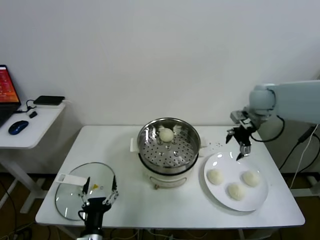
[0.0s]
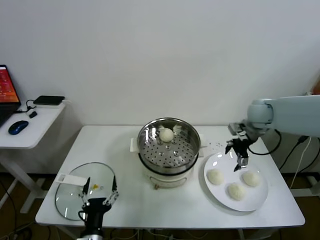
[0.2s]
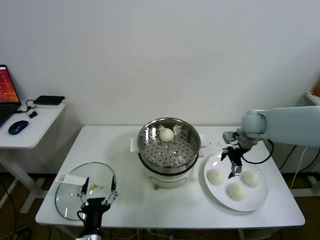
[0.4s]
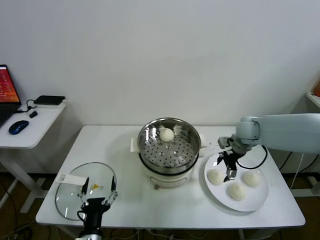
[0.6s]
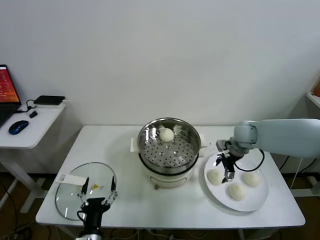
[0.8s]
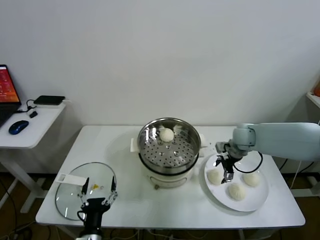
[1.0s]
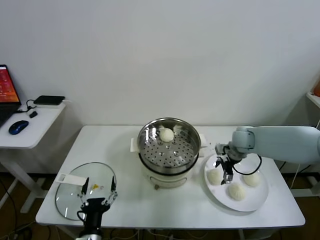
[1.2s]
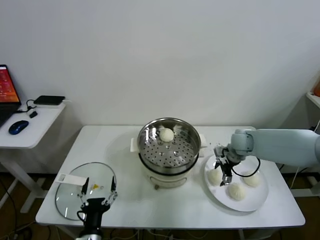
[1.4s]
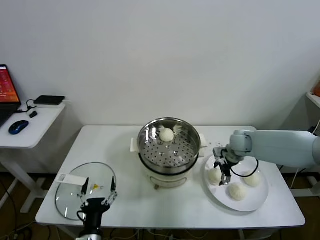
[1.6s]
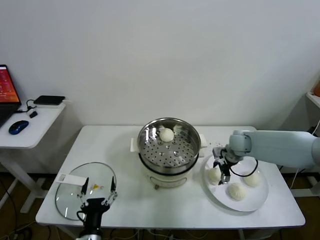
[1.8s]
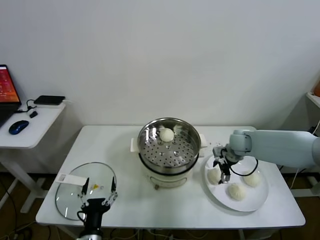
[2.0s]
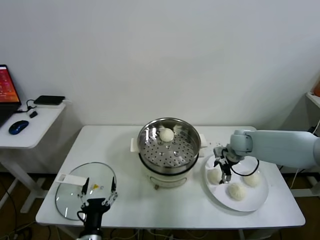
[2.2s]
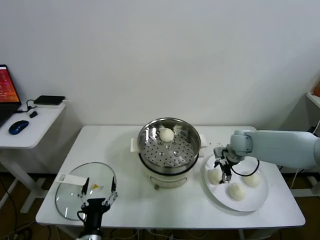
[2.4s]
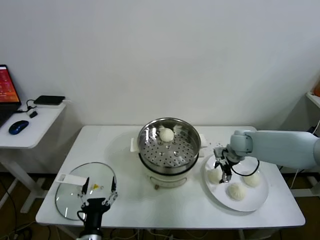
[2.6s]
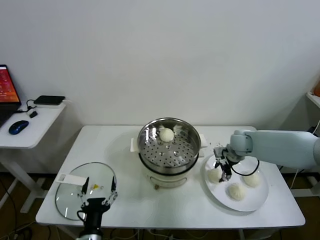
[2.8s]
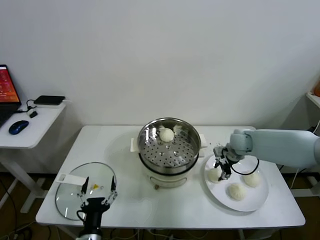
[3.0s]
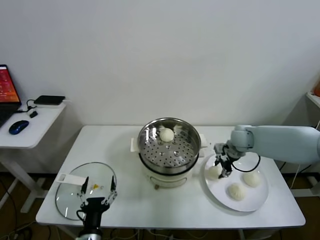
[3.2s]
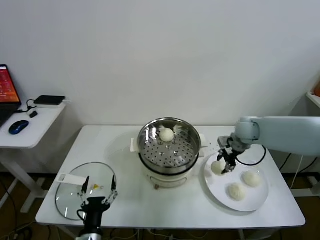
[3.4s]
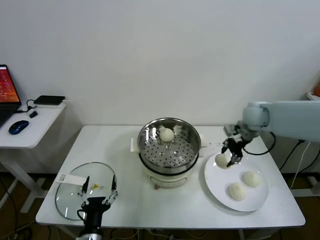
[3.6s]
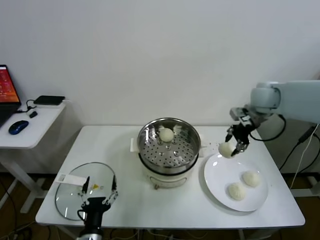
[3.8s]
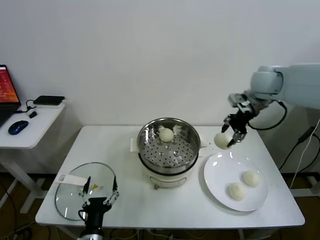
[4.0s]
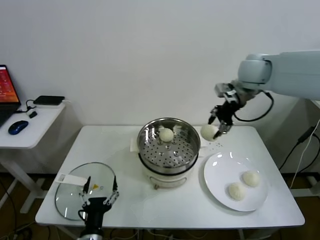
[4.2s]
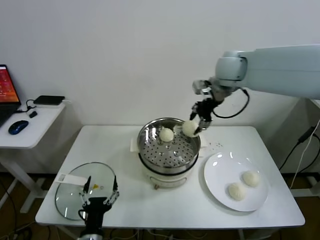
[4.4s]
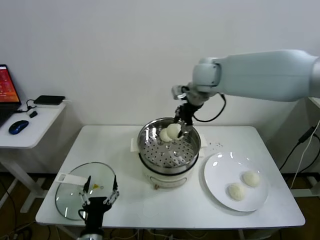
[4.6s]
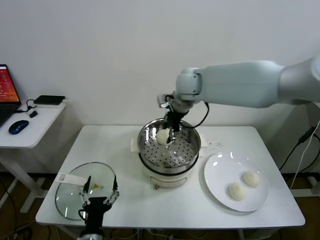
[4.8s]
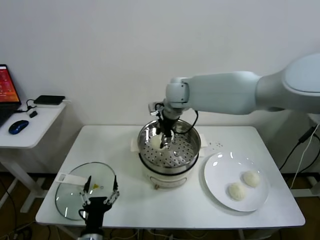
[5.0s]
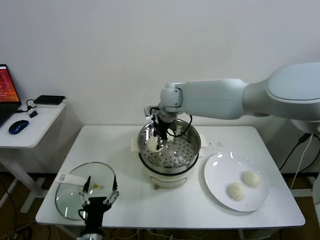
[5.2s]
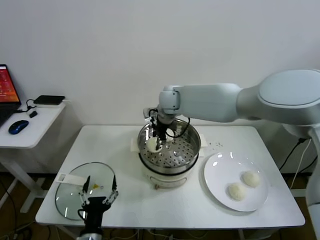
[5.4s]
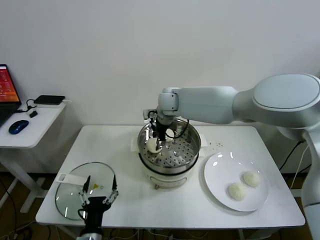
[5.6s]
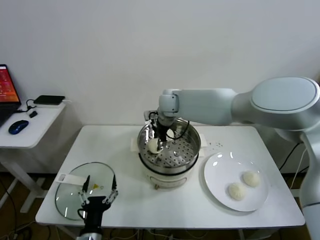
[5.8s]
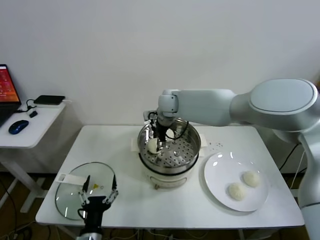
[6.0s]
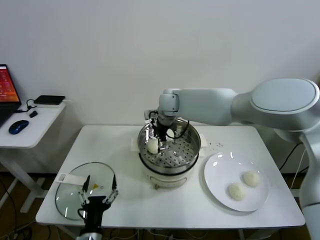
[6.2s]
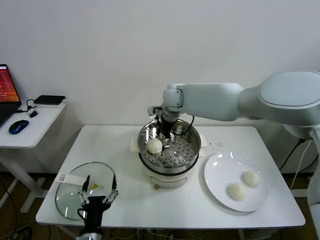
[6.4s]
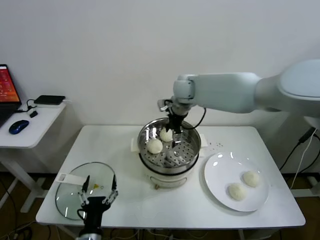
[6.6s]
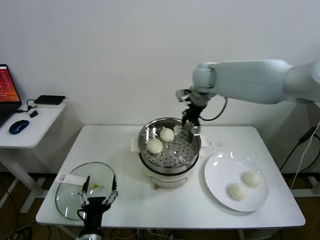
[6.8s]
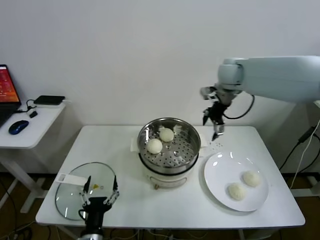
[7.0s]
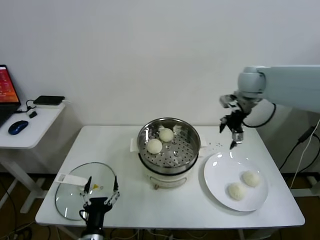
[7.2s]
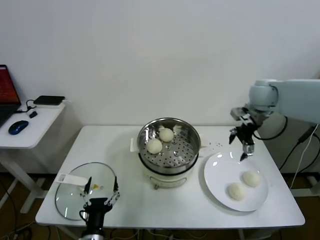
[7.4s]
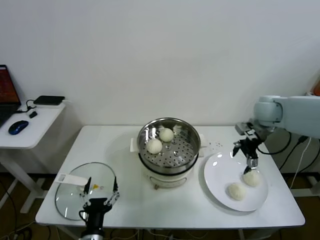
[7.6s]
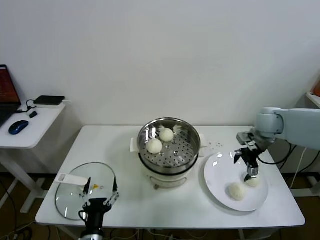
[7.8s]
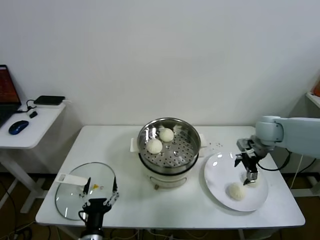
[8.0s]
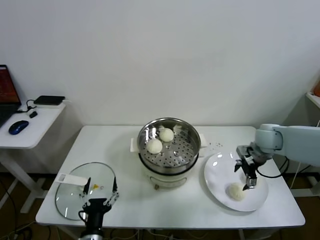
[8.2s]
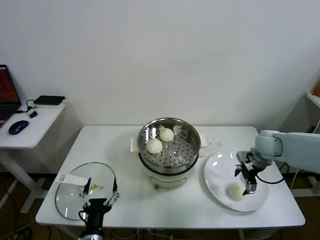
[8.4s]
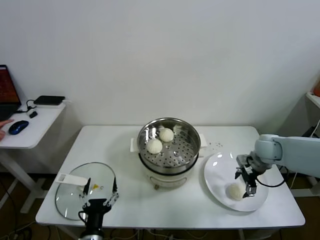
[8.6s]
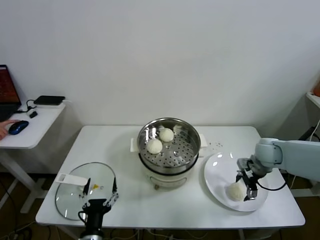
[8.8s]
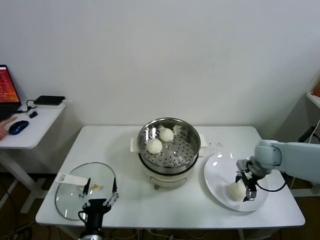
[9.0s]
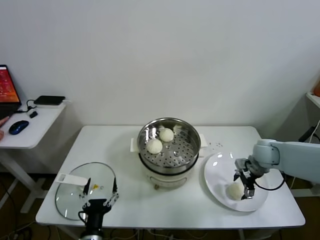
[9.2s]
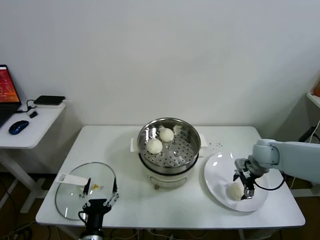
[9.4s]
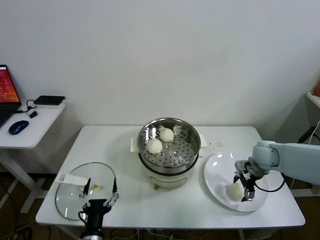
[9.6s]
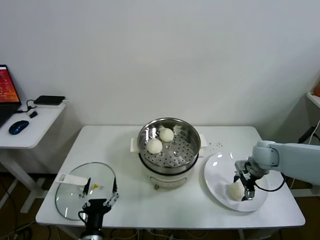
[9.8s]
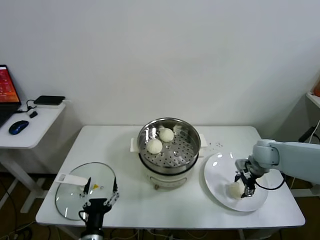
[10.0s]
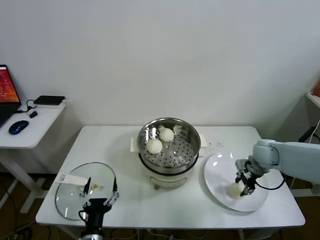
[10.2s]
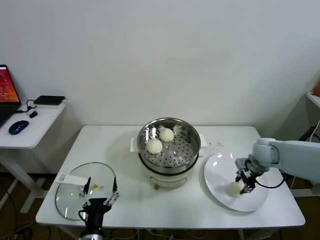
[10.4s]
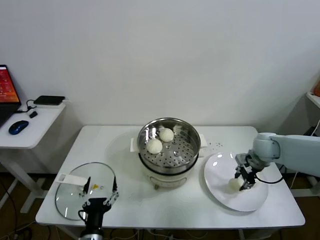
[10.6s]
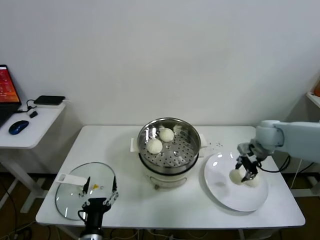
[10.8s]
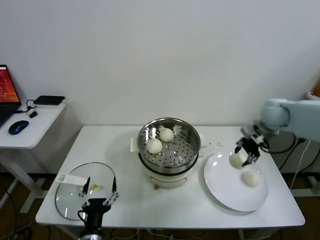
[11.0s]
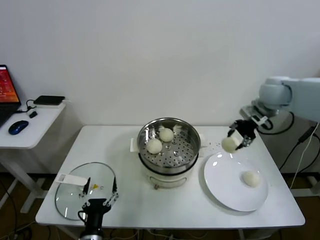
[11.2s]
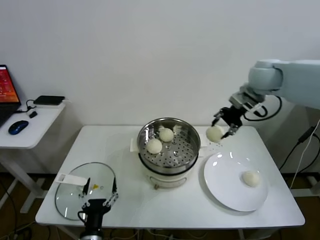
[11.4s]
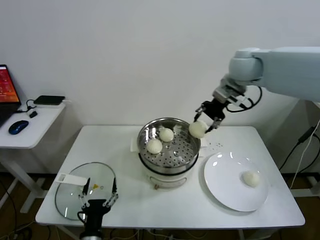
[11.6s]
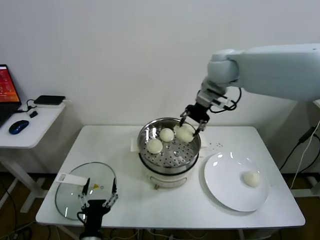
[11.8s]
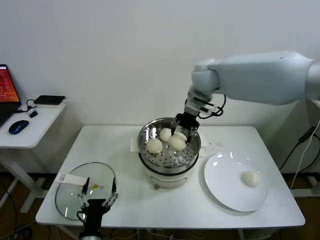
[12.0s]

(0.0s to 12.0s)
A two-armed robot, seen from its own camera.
Task of the whole recording: take steamed baozi put them in steamer.
Step, 0.0s - 3.0s: Grasp the baozi in the plate with right gripper.
Step, 3.2s - 6.2s: Place the baozi on the steamer with right gripper.
Step, 6.6s - 10.2s: Grasp the baozi in the plate with right gripper.
0.0s - 1.6s: The right gripper is displaced downward by roughly 15 cm.
1.6s - 3.0s: The right gripper closes up.
3.0s - 4.4s: The right gripper is displaced upward and to the left by some 30 cm.
4.4s - 6.0s: The right gripper goes approximately 20 cm downward and to the left, and opens.
6.0s - 7.6s: The right gripper is displaced to the right by approximately 30 cm.
7.6s - 9.0s: The right gripper travels downward and backward by roughly 15 cm.
9.0s - 10.4s: The right gripper closes its fingers.
10.4s - 12.0s: The right gripper moves upward and to the left, about 35 cm.

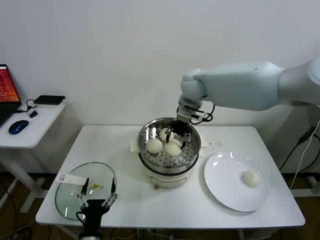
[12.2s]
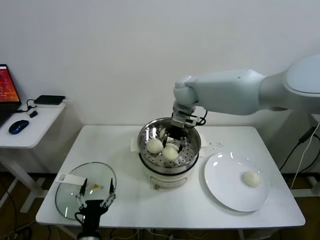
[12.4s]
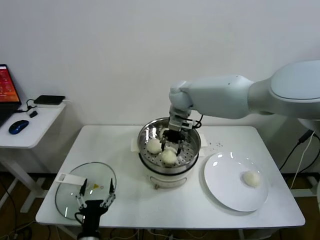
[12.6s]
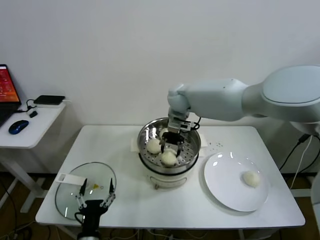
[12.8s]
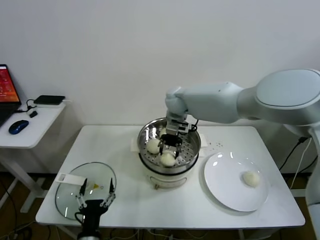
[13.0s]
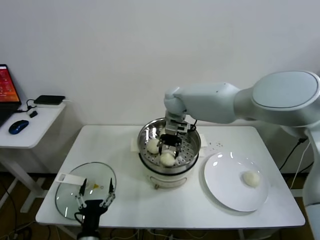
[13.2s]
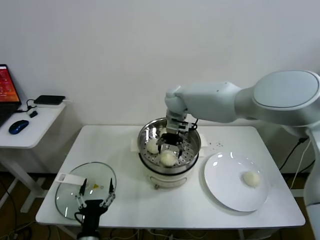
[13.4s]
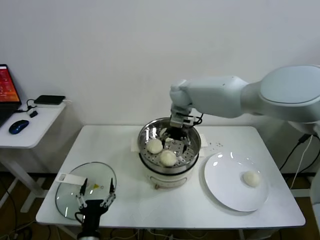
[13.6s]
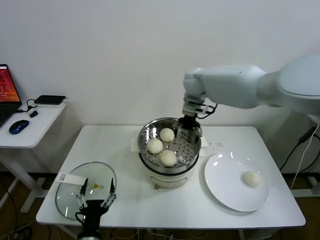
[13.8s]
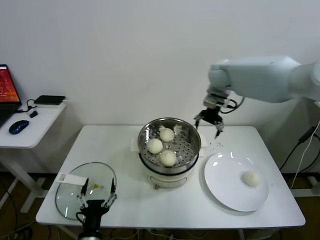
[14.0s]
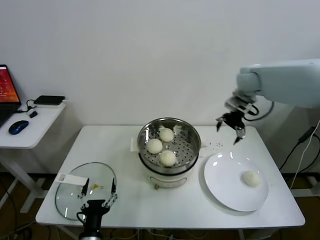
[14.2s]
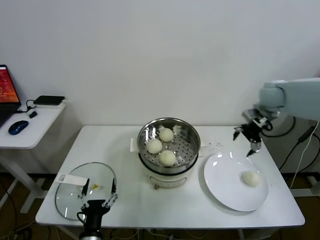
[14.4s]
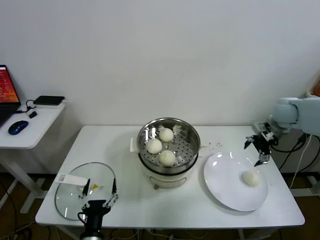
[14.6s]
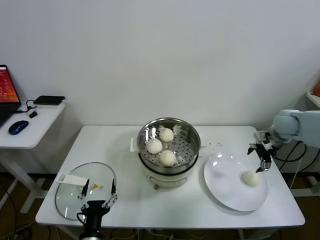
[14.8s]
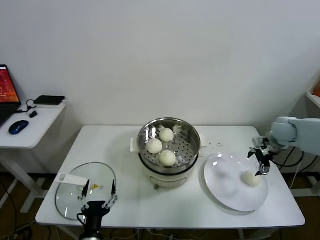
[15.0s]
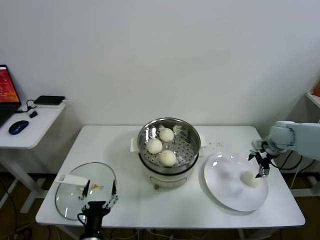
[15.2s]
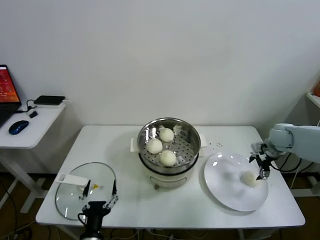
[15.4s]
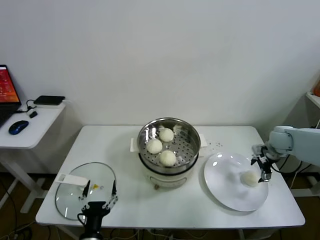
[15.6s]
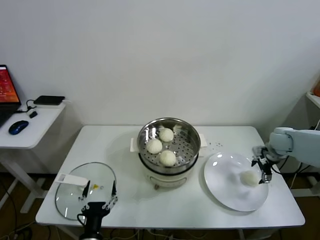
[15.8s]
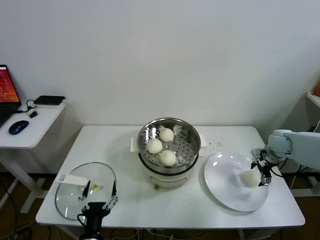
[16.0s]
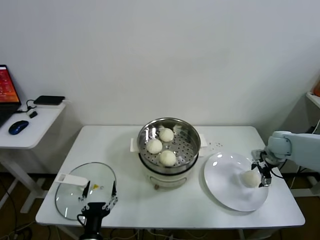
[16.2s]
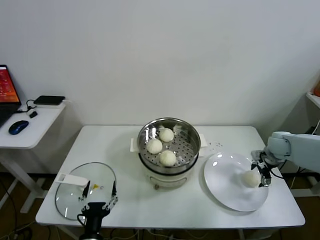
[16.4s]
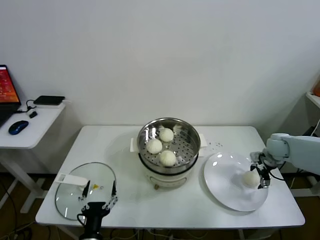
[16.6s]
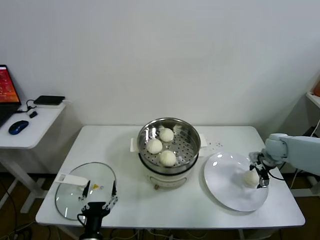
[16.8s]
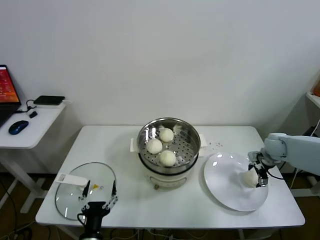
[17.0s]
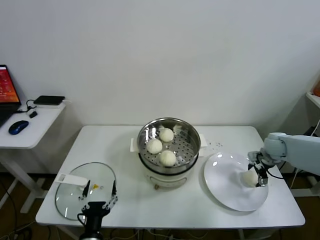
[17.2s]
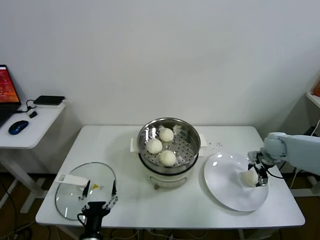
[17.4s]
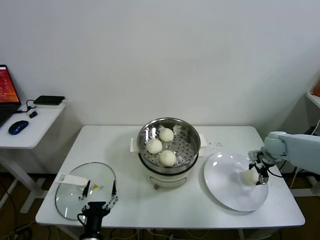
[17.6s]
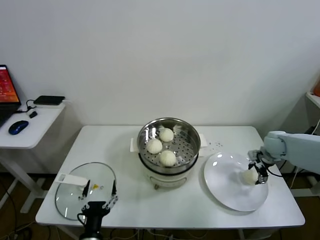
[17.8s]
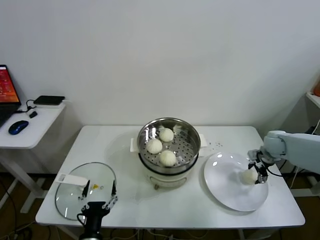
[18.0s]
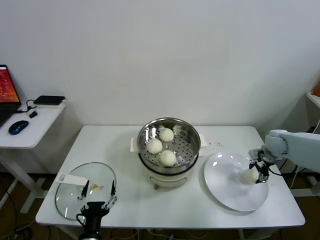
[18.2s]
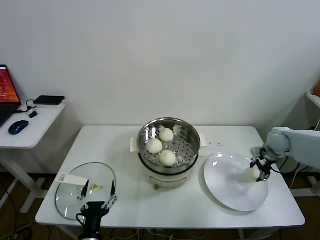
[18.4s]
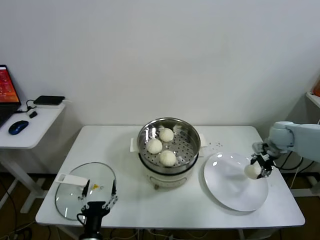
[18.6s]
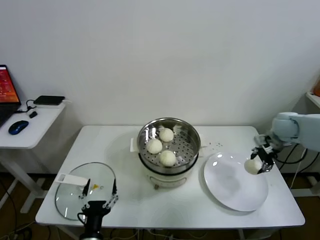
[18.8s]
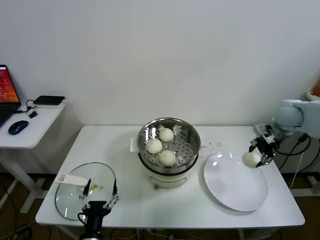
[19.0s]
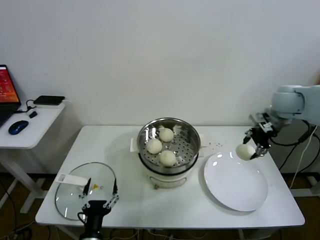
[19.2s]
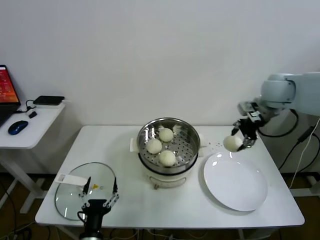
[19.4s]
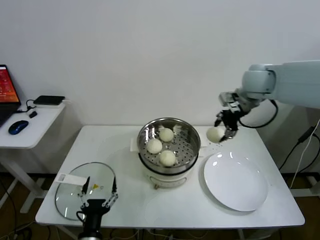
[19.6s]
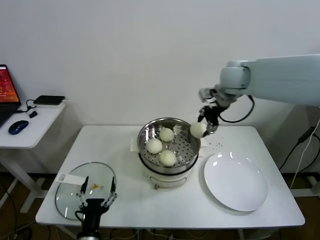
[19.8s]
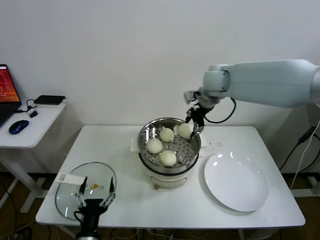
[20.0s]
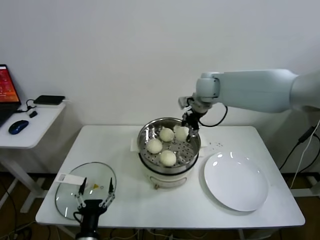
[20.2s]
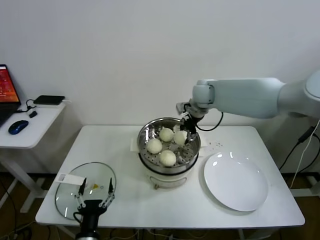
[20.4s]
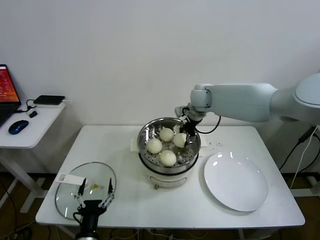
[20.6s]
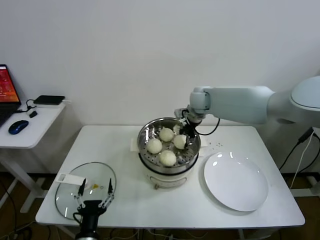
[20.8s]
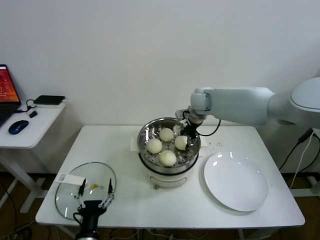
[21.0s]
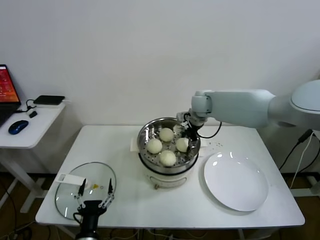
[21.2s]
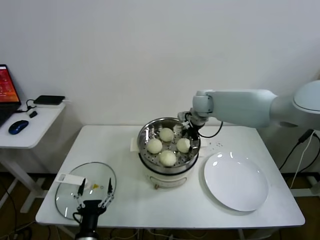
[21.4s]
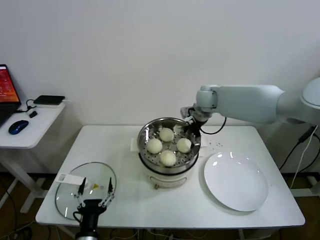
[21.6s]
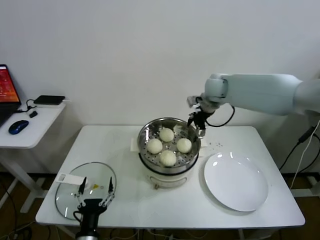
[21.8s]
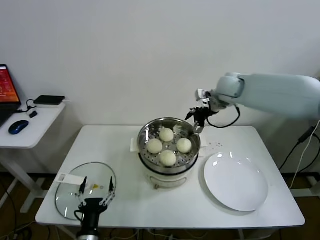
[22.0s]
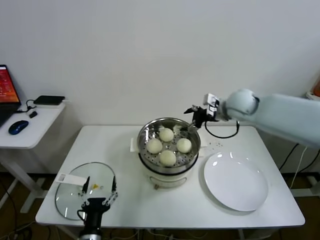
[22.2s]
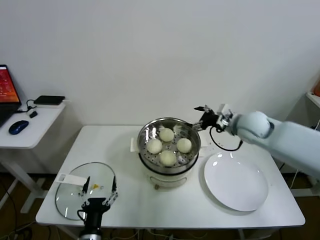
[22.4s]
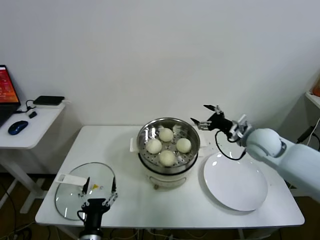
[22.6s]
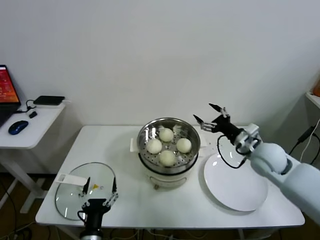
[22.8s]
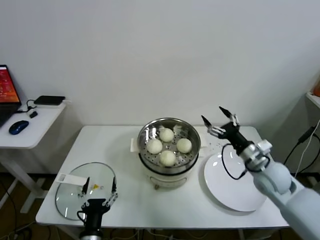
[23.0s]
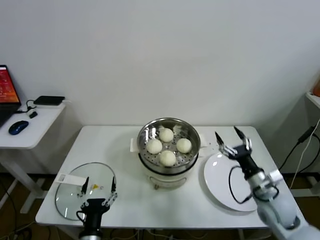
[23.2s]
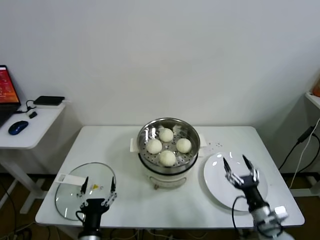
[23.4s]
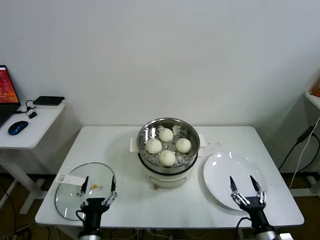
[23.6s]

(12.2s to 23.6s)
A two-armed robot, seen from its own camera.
Task of the whole recording: take steamed baozi put them in steamer.
Step, 13.6s - 17.8s: Grasp the baozi in the plate with right gripper.
Step, 18.0s - 21.6s: Place the baozi on the steamer with right gripper.
12.2s - 13.6s: The right gripper shifts approximately 5 cm downward, and opens its fingers.
13.6s - 15.0s: The right gripper moves to the right, some 35 cm.
15.0s - 16.4s: The right gripper is displaced downward by about 5 cm.
16.4s - 17.8s: The right gripper closes.
17.8s - 19.4s: The right gripper goes about 25 cm upward and to the left, and closes up.
19.4s - 20.8s: The right gripper shifts approximately 25 cm to the left, forward and downward.
20.8s - 22.2s: The right gripper is displaced to the right and backward by roughly 10 cm, and opens its fingers.
22.2s - 23.6s: The right gripper shifts approximately 50 cm backward and downward.
